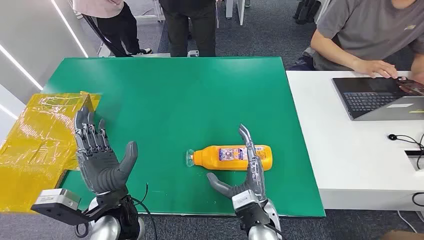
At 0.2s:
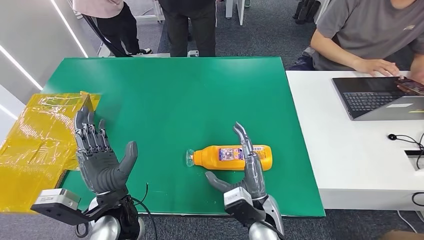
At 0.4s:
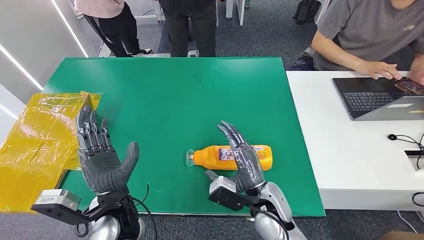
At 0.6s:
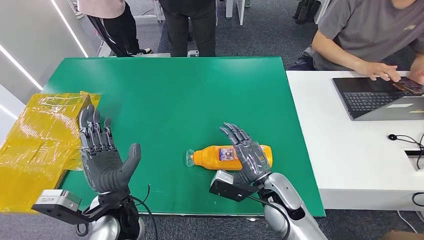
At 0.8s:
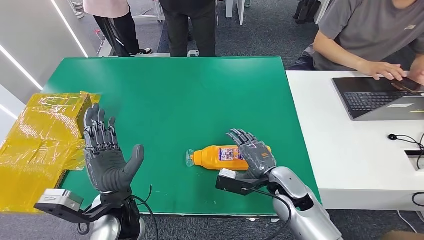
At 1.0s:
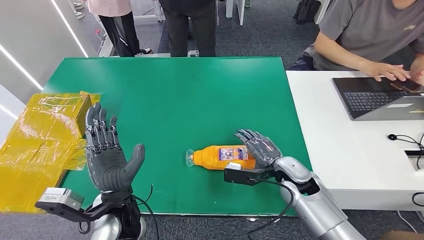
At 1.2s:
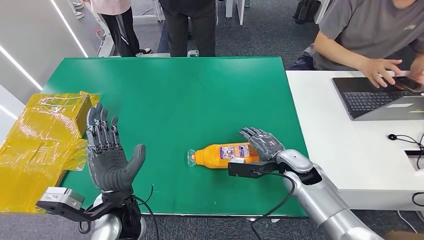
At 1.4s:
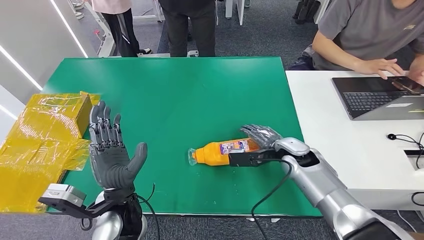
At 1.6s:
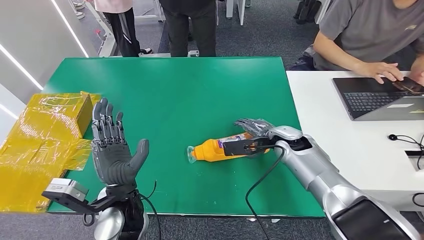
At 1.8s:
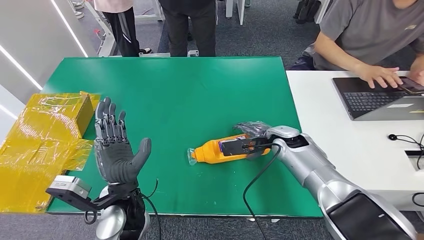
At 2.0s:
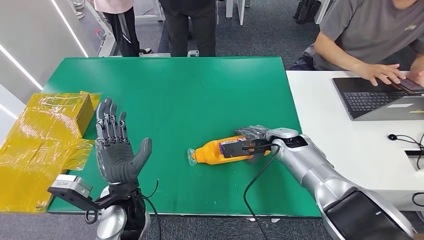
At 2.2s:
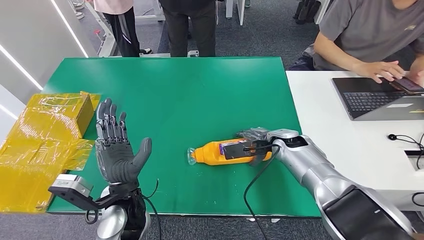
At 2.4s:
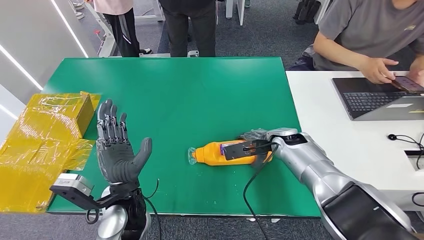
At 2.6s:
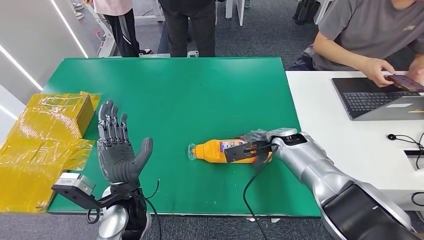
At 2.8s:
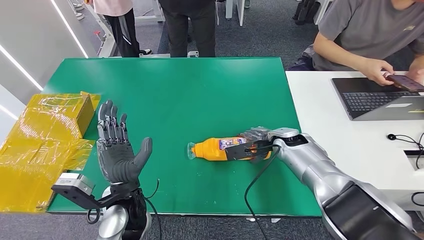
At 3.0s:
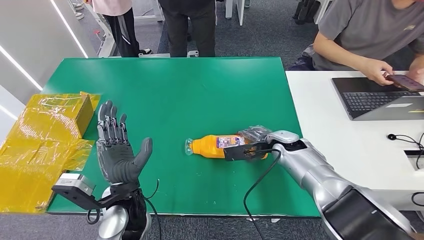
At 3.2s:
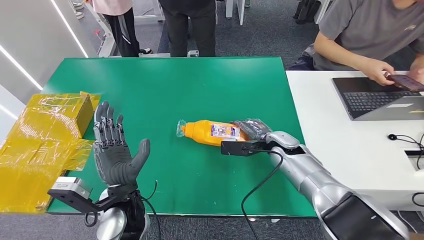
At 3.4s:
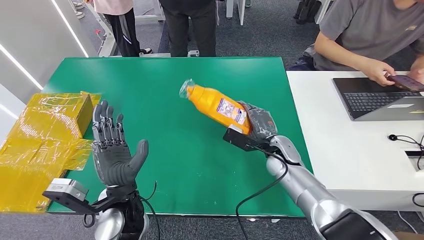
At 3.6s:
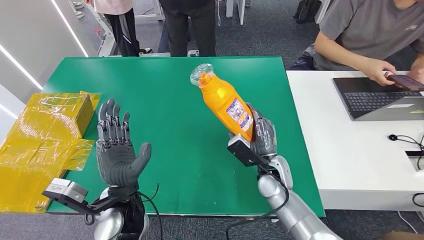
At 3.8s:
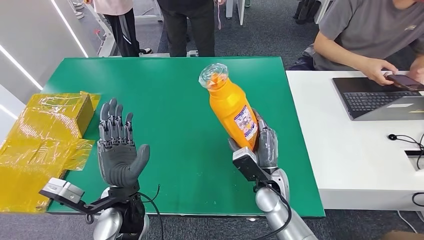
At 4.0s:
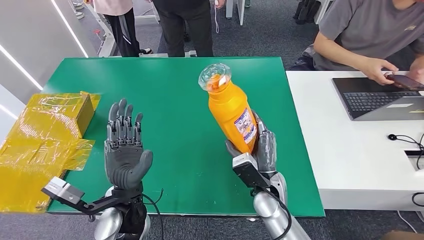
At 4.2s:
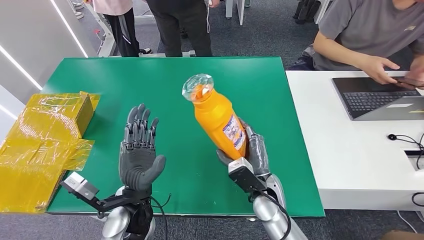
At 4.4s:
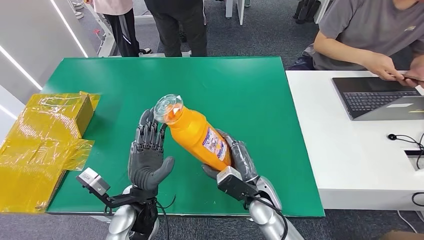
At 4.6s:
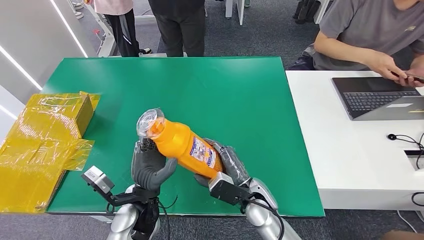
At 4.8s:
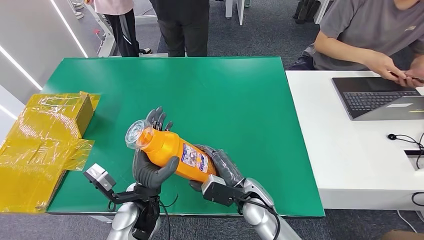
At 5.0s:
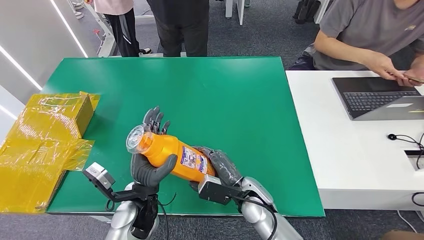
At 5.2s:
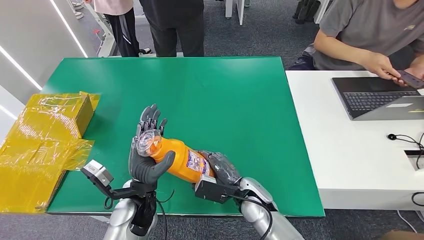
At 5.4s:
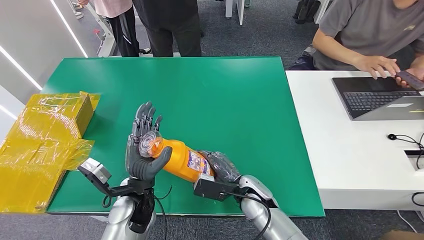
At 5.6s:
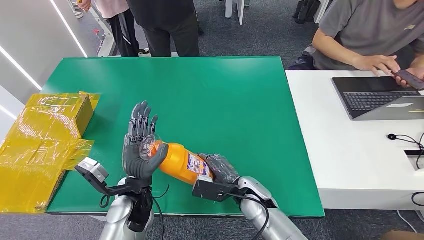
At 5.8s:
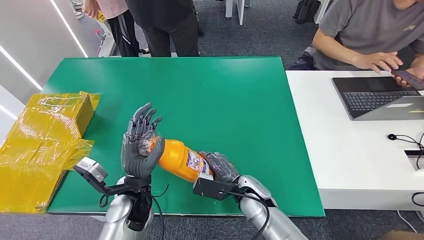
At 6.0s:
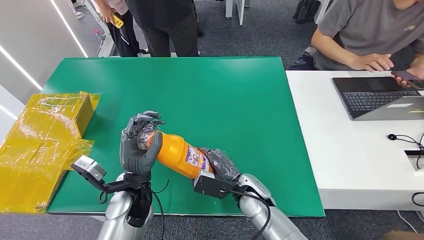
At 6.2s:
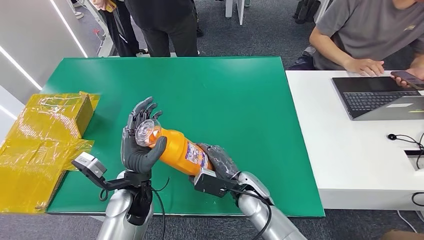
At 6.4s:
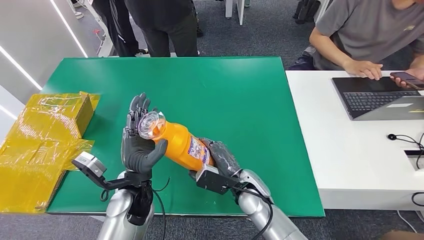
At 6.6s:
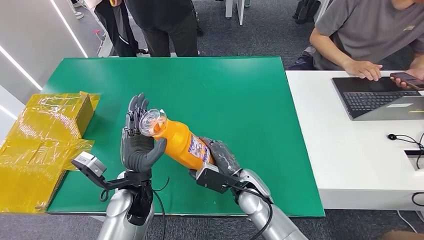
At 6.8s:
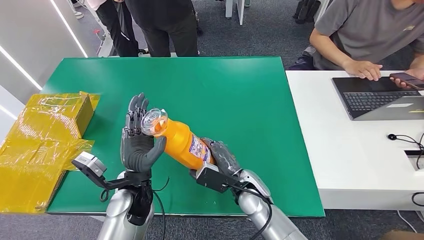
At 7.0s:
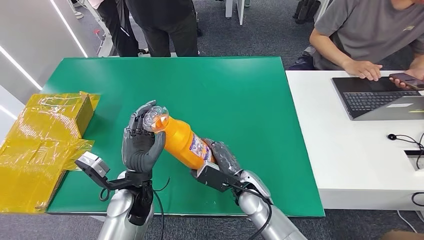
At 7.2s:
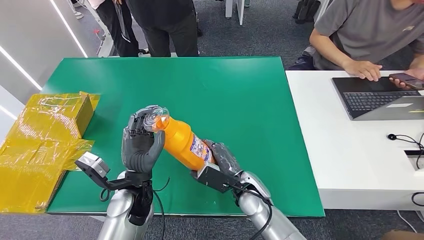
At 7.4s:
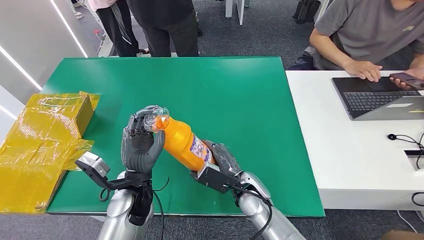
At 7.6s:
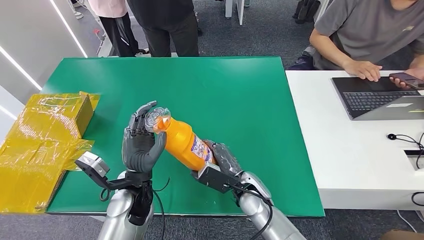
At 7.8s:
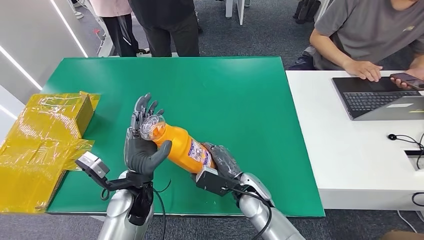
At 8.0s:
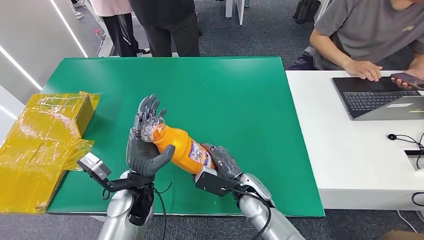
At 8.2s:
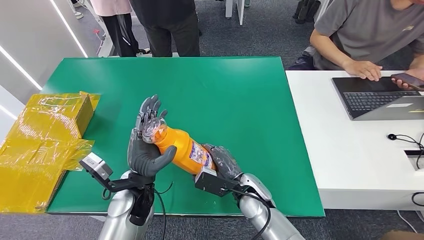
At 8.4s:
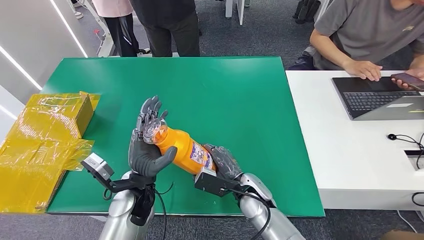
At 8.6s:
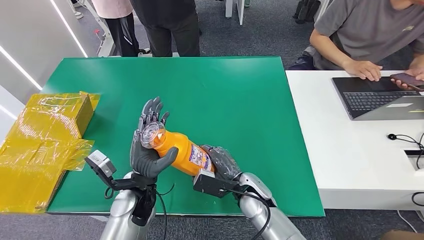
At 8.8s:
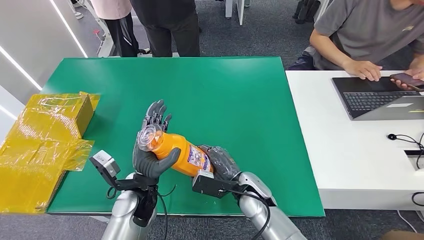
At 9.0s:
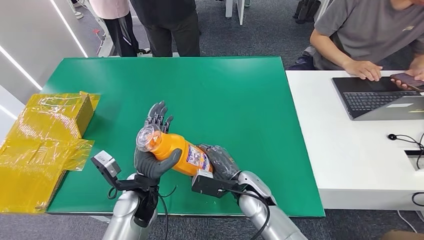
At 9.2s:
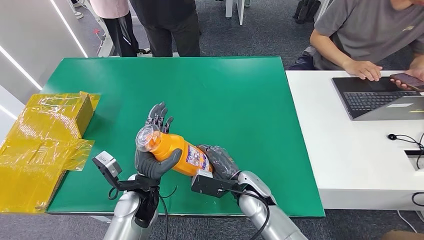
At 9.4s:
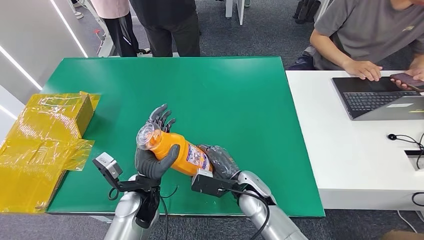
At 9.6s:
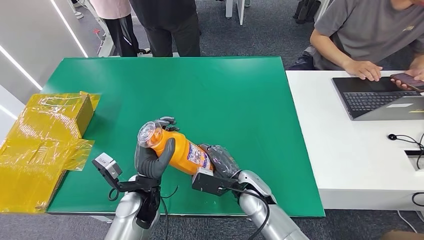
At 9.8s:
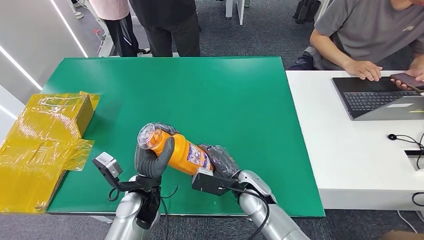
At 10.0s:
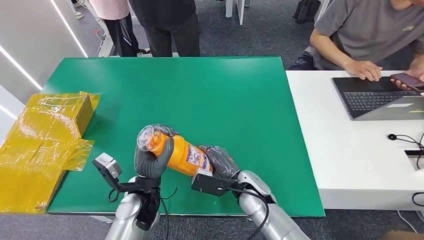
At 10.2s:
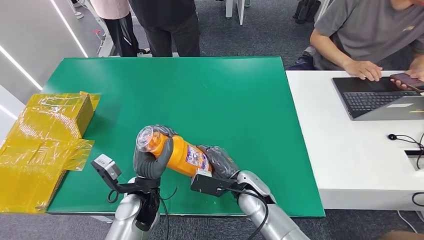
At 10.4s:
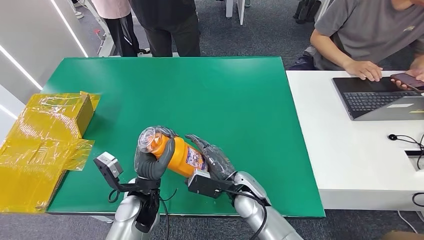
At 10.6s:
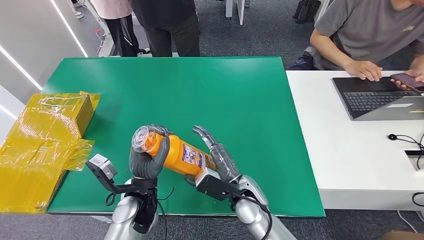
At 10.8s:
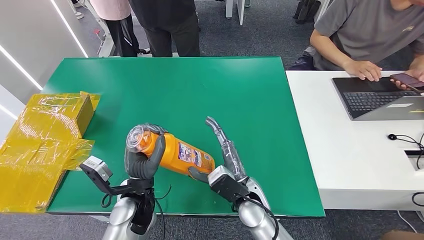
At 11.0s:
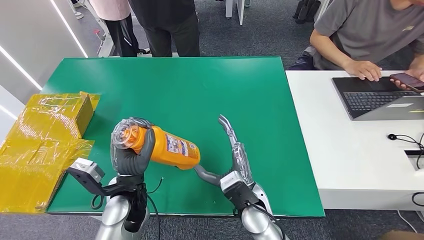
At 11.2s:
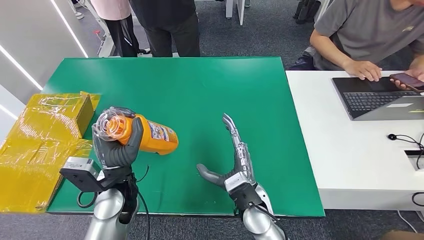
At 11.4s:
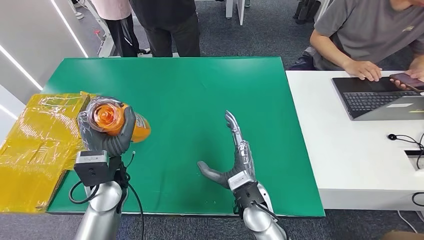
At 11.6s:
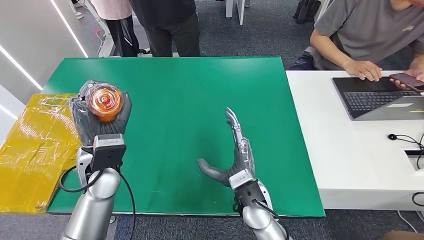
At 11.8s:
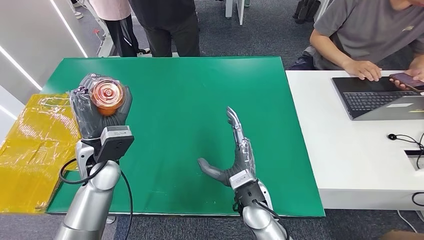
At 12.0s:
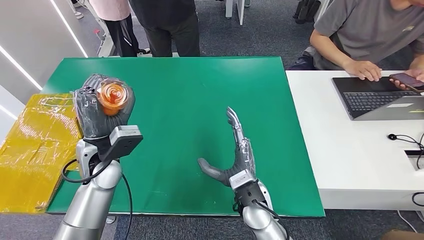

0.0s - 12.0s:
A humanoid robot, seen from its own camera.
Step, 0.0s - 4.0s: Pick up the bottle from the table.
1.6s - 3.0s: There are only small adjustments of the hands.
6.0s - 10.4s: The hands move only a little.
10.4s - 12.0s: The left hand travels upward, to the left and forward by roughly 15 cm.

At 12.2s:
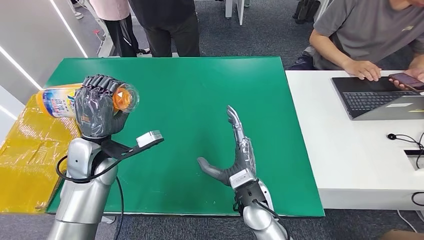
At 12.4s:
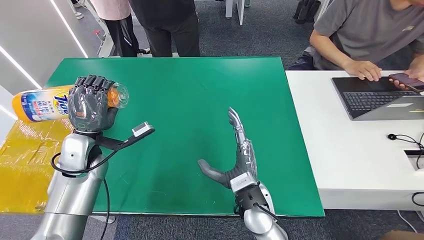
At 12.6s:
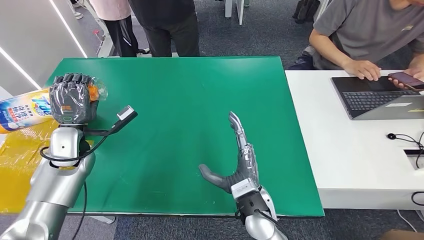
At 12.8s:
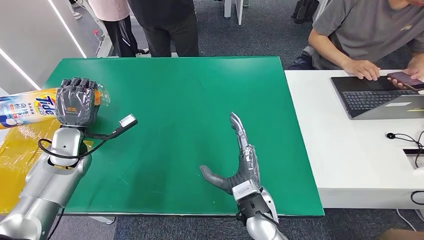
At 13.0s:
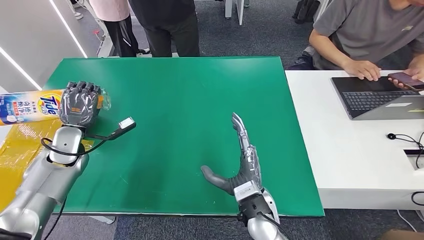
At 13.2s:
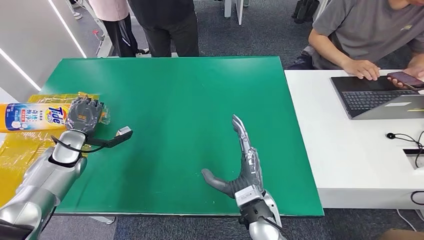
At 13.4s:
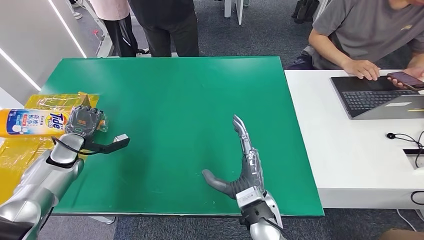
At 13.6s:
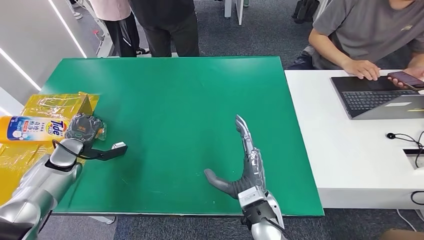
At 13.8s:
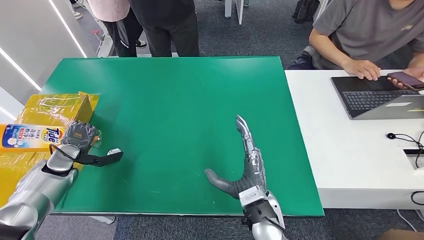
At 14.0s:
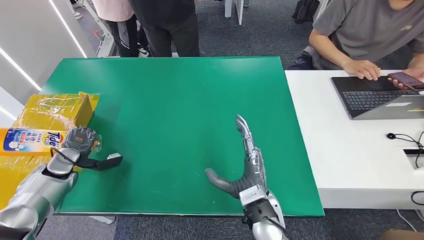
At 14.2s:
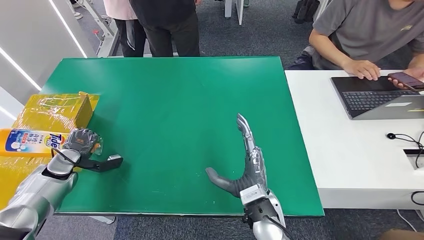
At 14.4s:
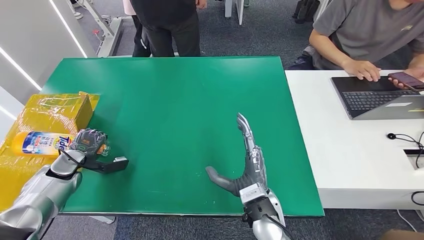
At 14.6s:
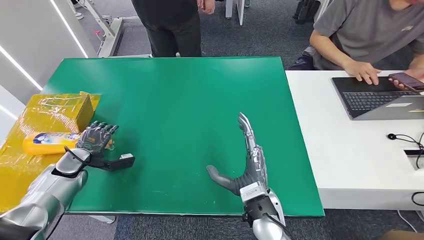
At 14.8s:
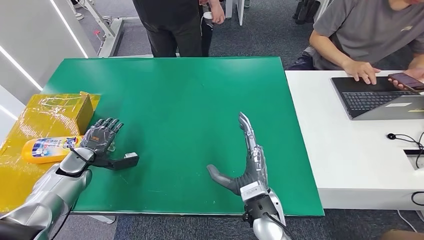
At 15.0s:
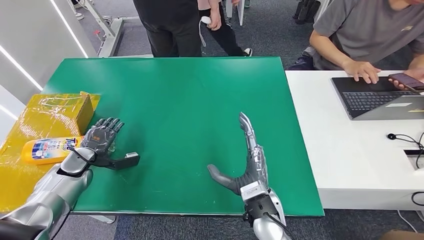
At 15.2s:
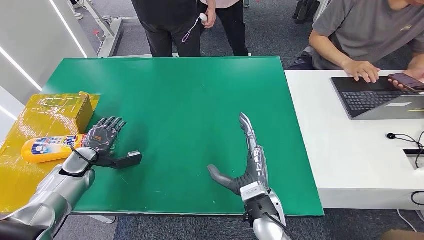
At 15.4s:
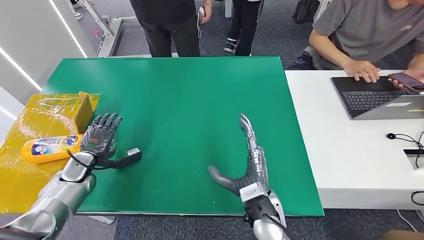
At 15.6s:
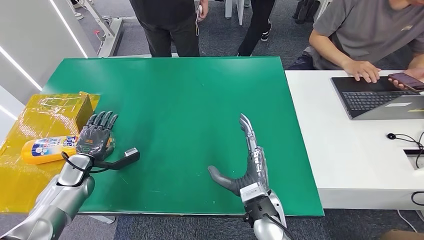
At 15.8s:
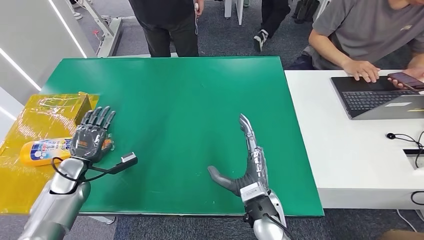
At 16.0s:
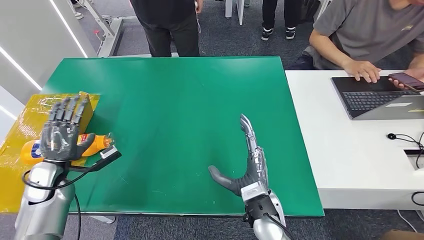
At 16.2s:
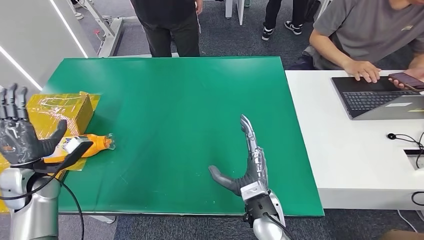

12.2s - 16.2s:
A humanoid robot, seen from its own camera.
Step, 12.2s - 16.2s: Turn the bottle to the front side.
12.2s - 13.6s: The left hand heads to the left and downward, covering roughly 20 cm.
13.6s - 14.8s: The hands make only small movements.
14.8s - 16.2s: The left hand is displaced upward and backward by approximately 10 cm.
